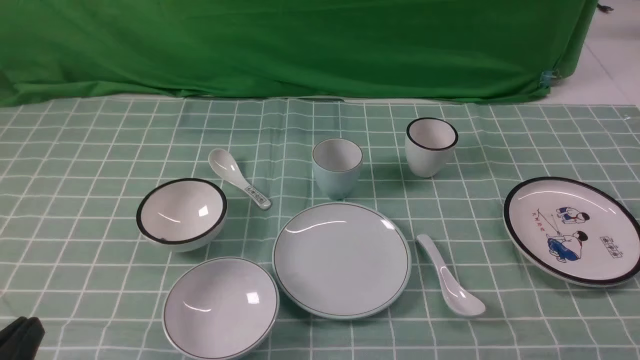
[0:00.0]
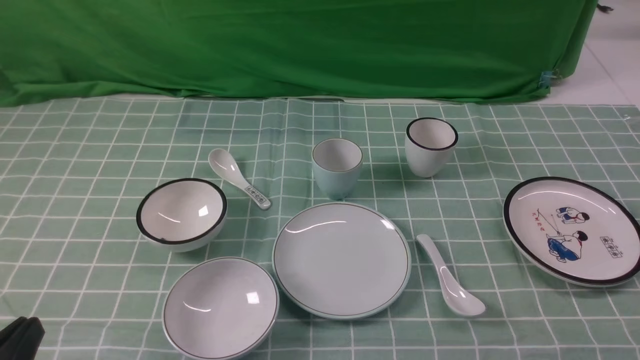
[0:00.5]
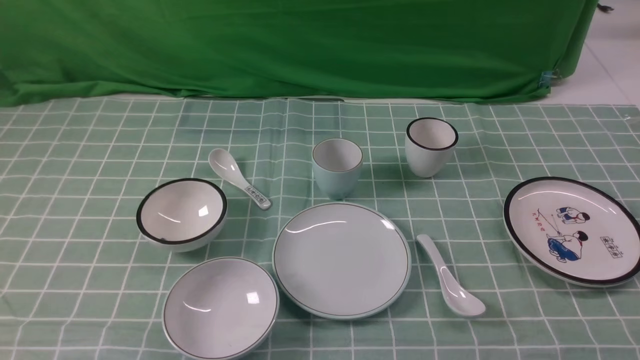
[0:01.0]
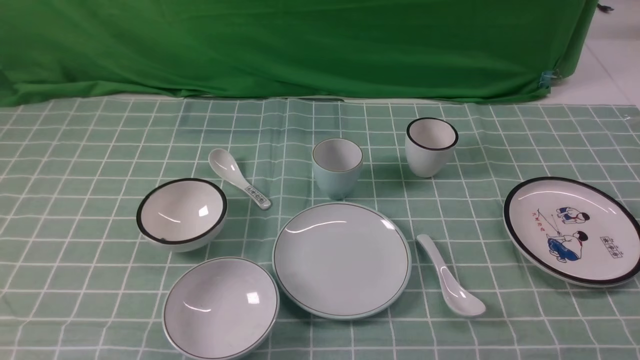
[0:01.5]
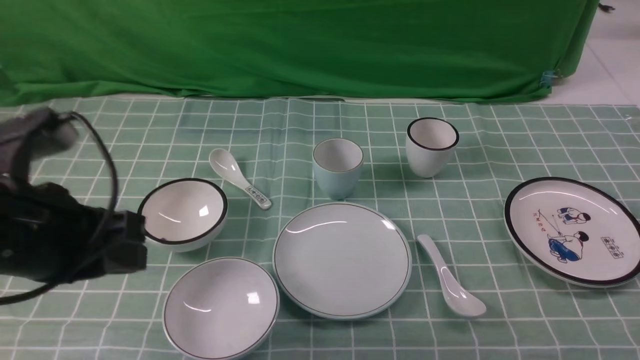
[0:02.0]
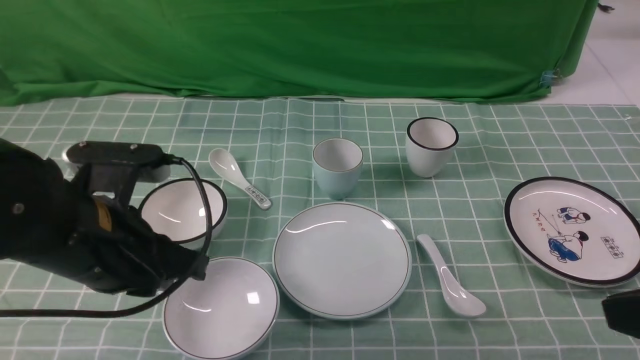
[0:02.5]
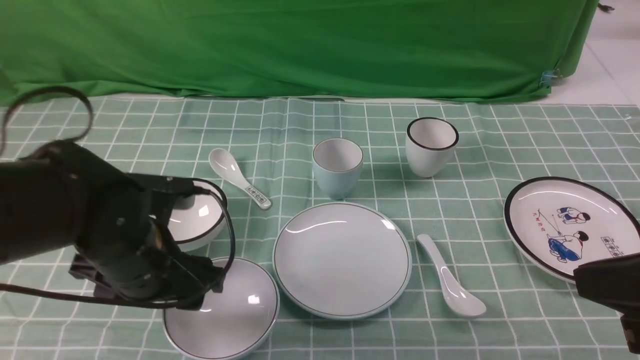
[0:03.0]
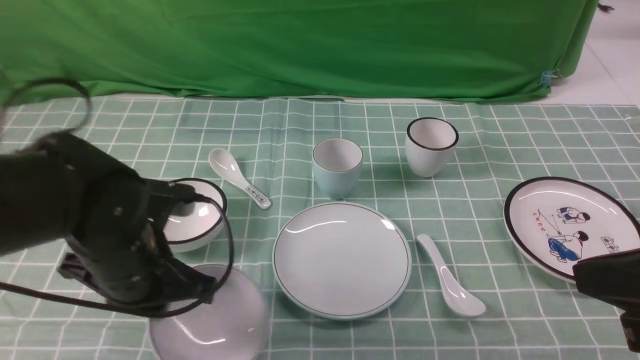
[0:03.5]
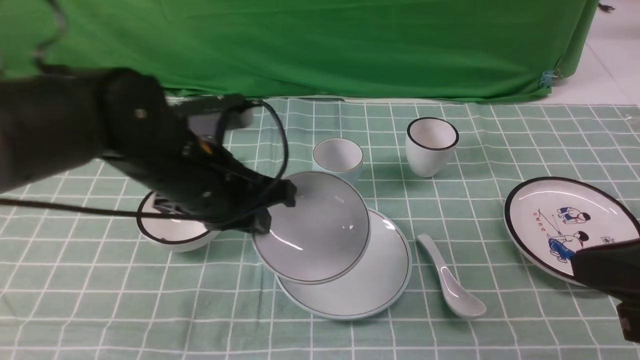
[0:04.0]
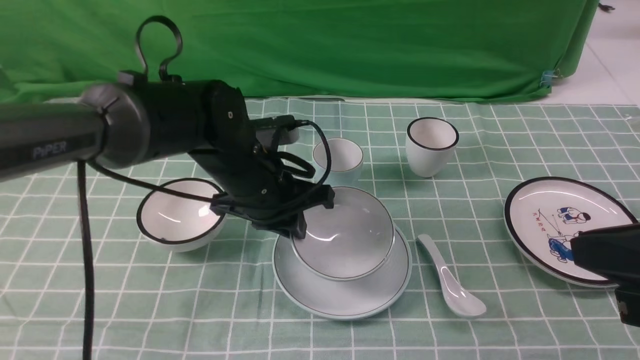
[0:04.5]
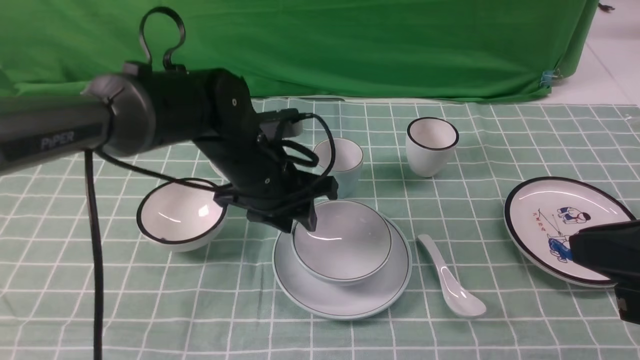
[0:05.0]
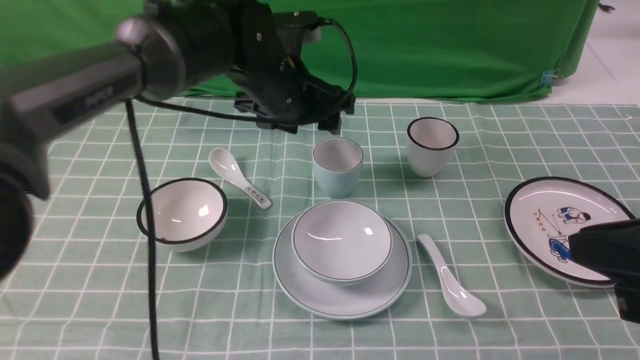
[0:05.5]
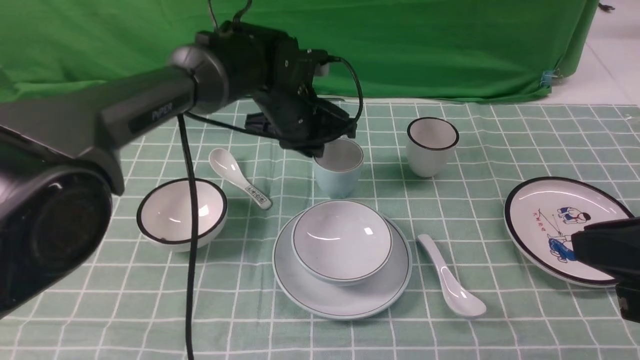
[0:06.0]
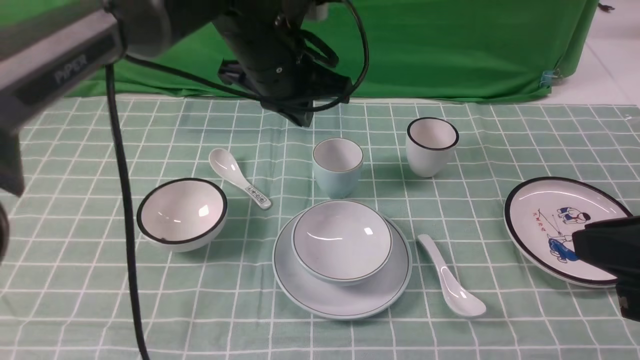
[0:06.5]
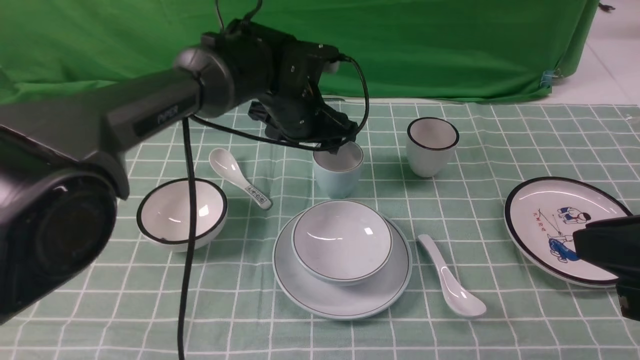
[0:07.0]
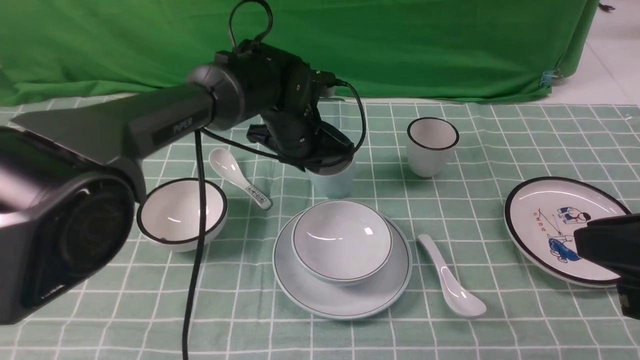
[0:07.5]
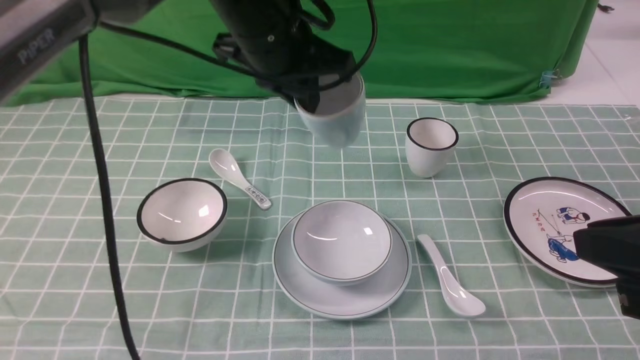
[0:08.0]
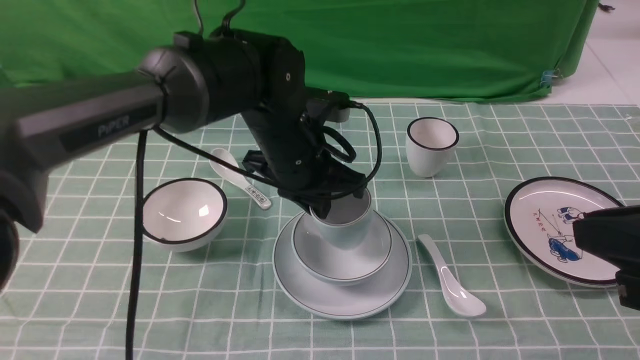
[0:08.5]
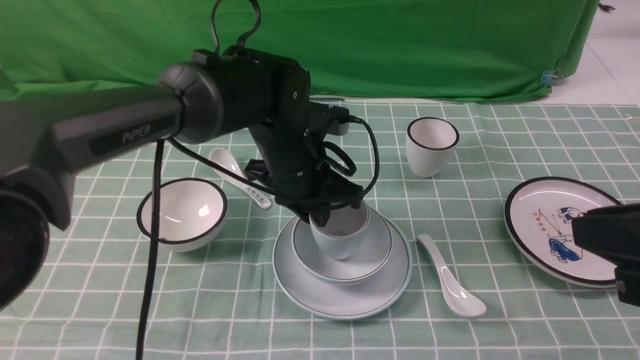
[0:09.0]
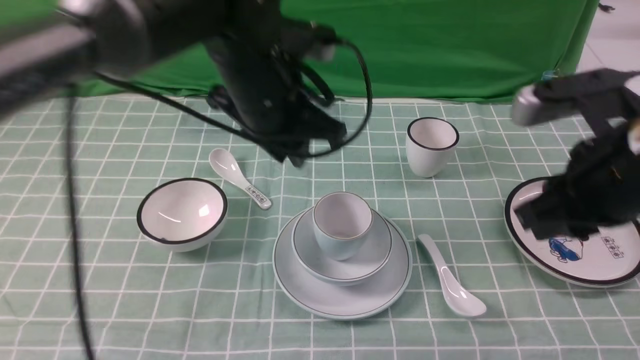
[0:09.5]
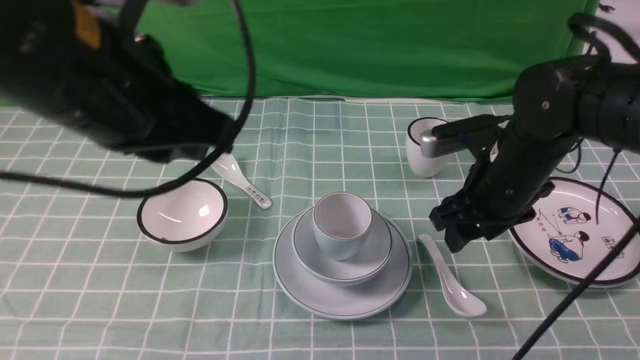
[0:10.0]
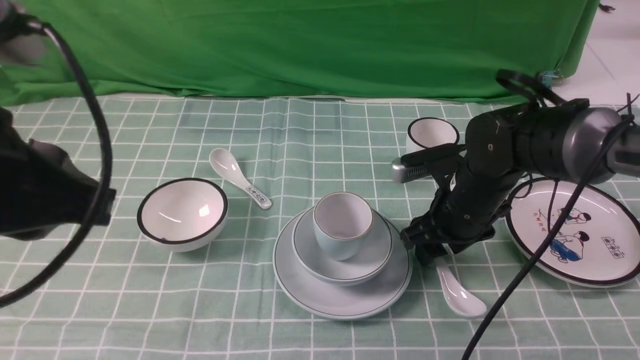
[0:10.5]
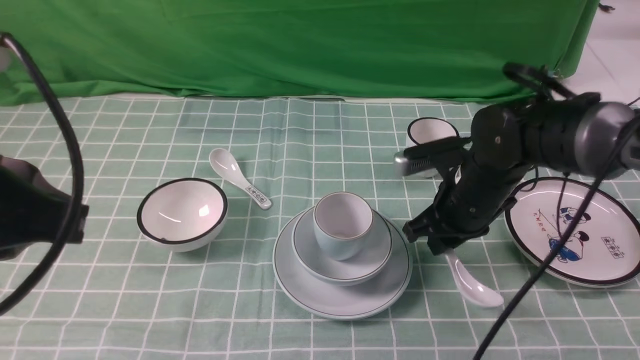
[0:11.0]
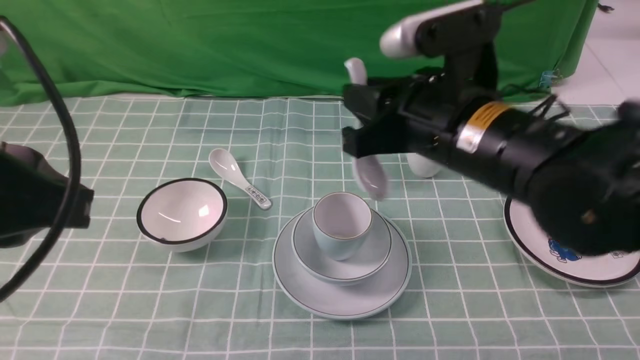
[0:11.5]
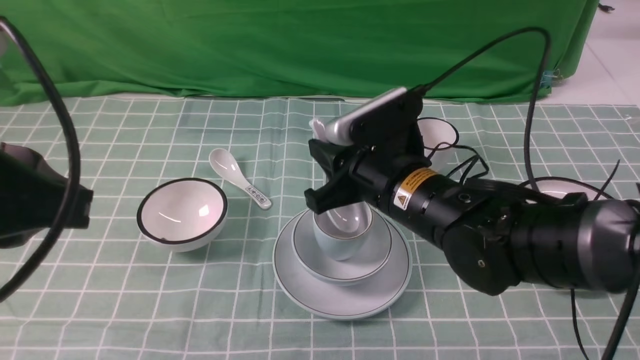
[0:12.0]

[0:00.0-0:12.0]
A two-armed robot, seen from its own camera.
Task of the whole recording: place the bowls on the plates on the blue tablecloth, put the cups on the bowls, and place the spoons in the cups.
Step, 0:00.0 to 0:03.0: Grasp the bowl with the left gripper.
Step, 0:03.5 to 0:04.5: Place the bowl on the plate with the left gripper.
Step, 0:05.5 to 0:07.0: Grasp the cup with the left gripper.
Step, 0:08.0 to 0:09.0: Place the cup on the bowl with the left gripper.
Step, 0:09.5 to 0:10.5: Grasp the spoon with the right gripper.
0:00.0 to 0:02.0: The right gripper is displaced upward by some 10 cm, and closes. Meanwhile the left gripper travels forward and upward by roughly 15 cm.
0:02.0 to 0:04.0: The left gripper shifts roughly 15 cm forward and to the right, and opens, then closes once more. Meanwhile the right gripper travels to the left and forward by about 10 cm.
0:04.0 to 0:06.0: The left gripper goes some 15 cm forward and to the right, and opens, then closes once more.
0:06.0 to 0:08.0: The left gripper moves up and down over approximately 10 cm, changing direction 2 times, and opens and closes again.
0:08.0 to 0:10.0: The left gripper heads backward, to the left and upward, covering about 20 cm; the right gripper shifts about 25 cm forward and downward, and opens.
0:10.0 to 0:12.0: The right gripper goes up and down, approximately 15 cm each way, reversing 2 times, and closes; the left gripper shifts some 10 cm backward and to the left.

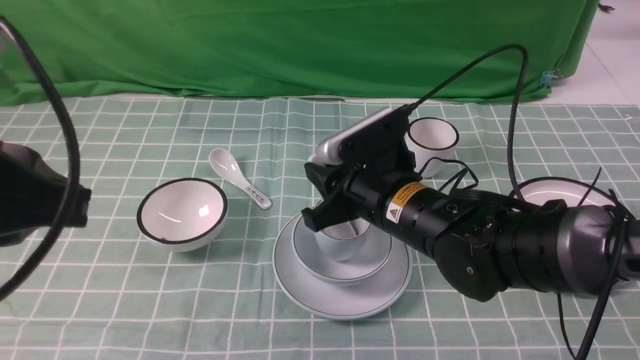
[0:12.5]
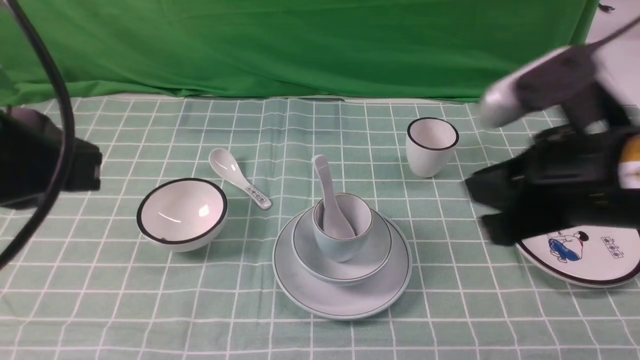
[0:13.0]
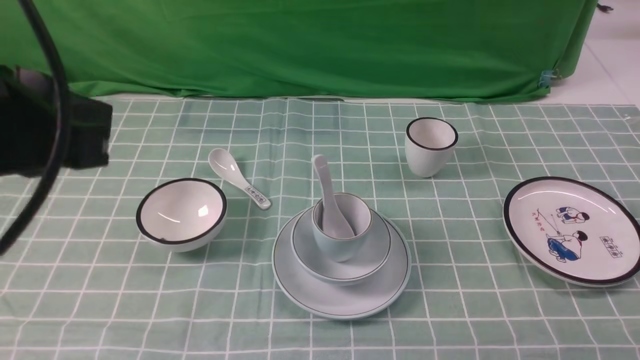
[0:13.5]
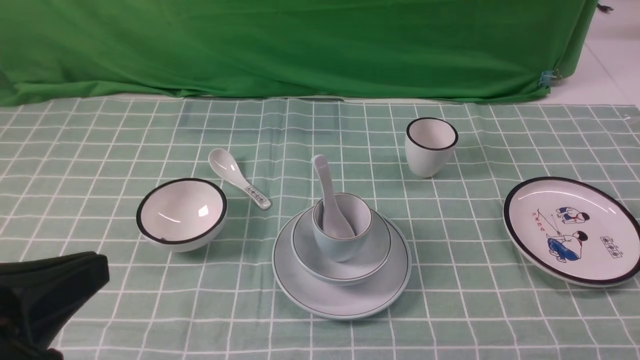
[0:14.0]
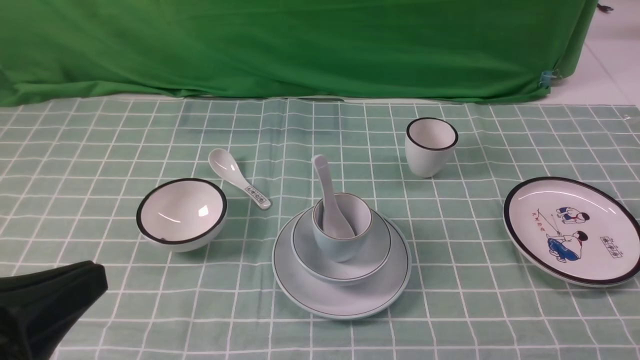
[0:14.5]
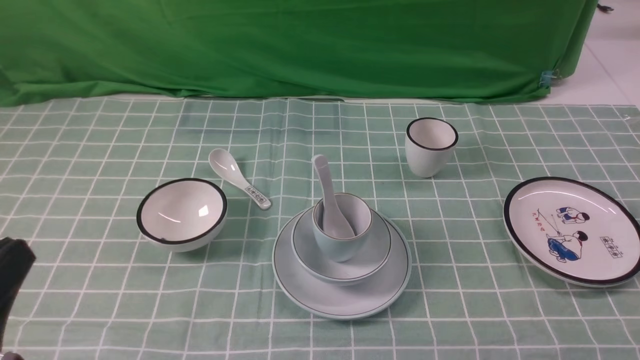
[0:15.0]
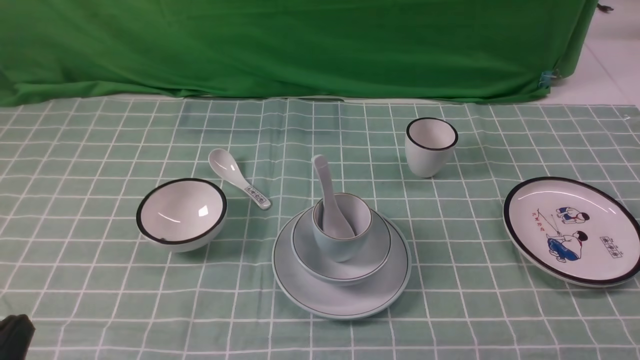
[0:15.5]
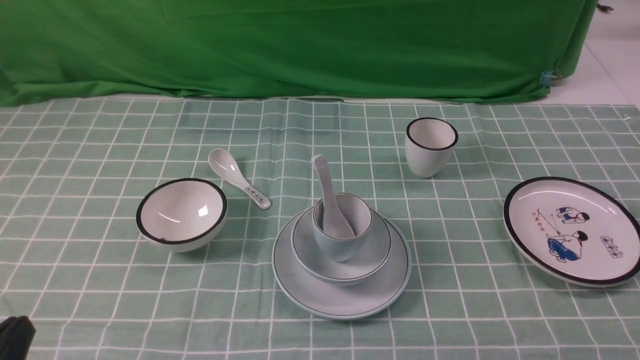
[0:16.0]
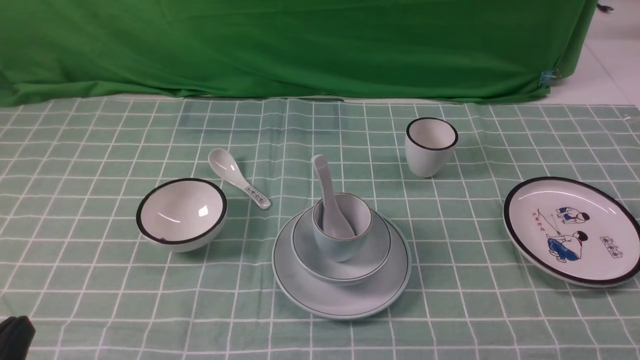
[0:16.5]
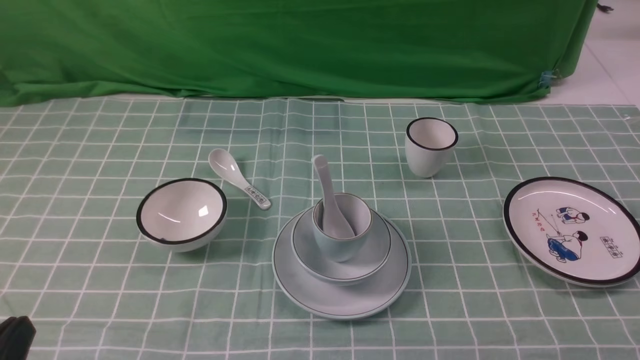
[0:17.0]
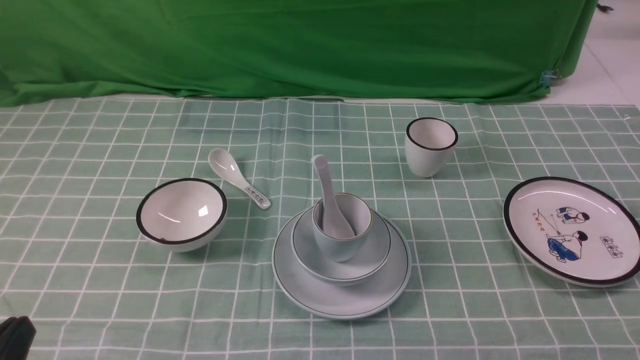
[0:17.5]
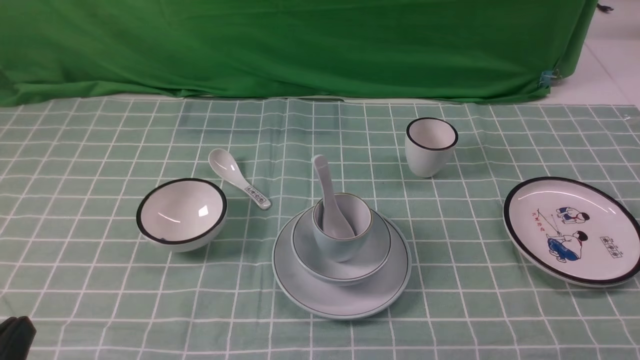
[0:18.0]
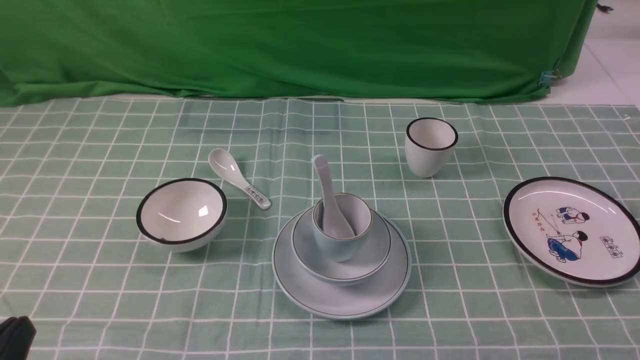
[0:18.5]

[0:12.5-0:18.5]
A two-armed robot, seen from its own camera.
Task of the whole recording: place the bowls on the plates on the blue tablecloth, put the cups on the bowls, and place the spoons in the cups.
0:12.5 to 0:14.5: The left gripper heads downward and backward, covering roughly 10 cm, while the right gripper moves backward and to the right, roughly 35 cm, and closes, then opens again.
0:14.5 to 0:16.5: The left gripper is displaced downward by about 10 cm.
